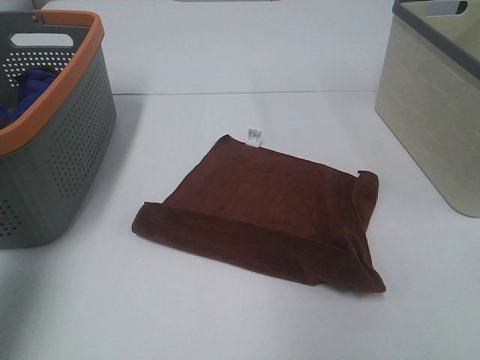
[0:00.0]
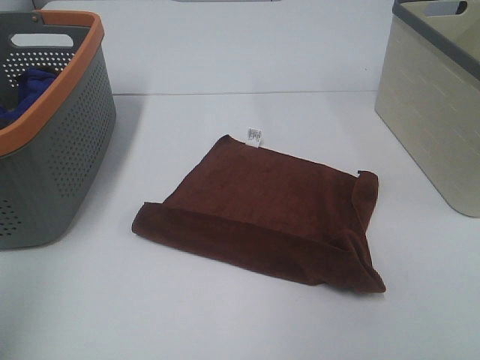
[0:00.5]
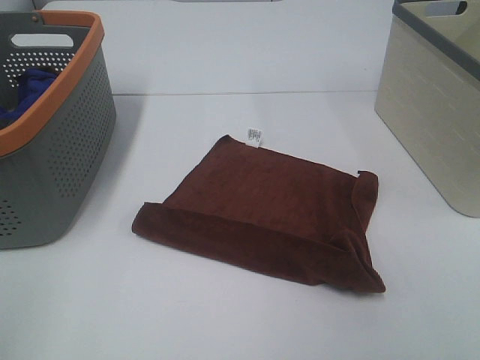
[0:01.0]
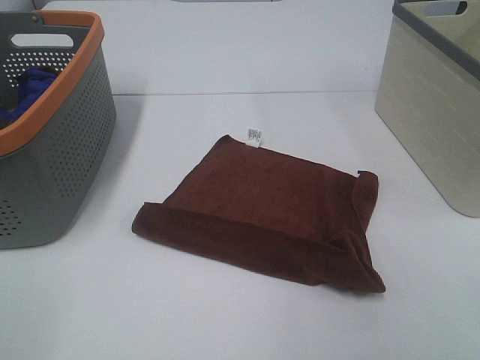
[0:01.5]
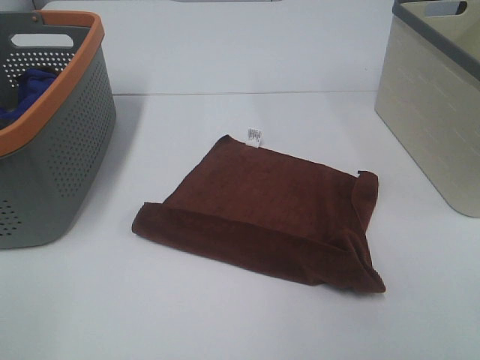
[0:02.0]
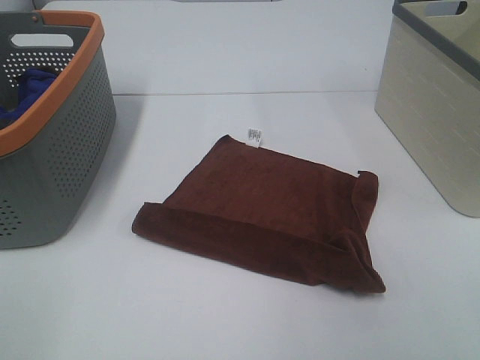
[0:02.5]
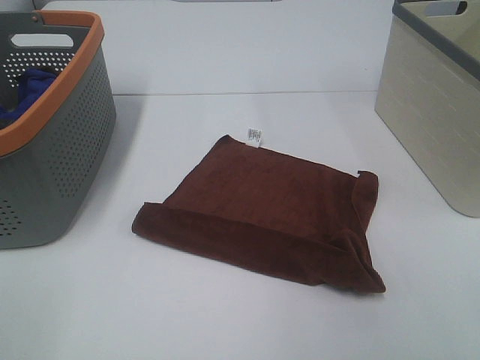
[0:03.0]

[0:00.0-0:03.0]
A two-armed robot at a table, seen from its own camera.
Task of the whole recording: Remove the towel and place it.
0:00.0 to 0:01.5: The left gripper goes about 25 cm backward and downward.
0:01.5 to 0:03.0: Both grippers stay put.

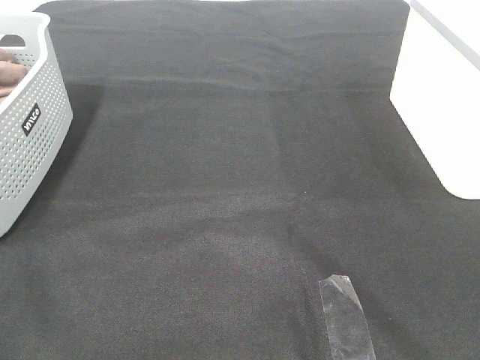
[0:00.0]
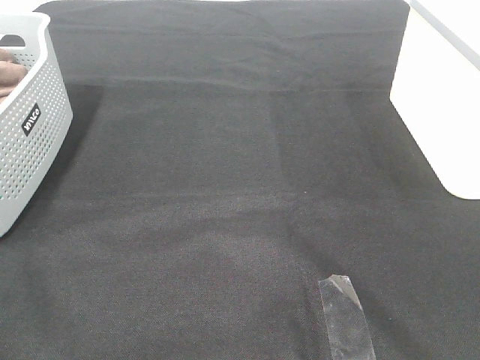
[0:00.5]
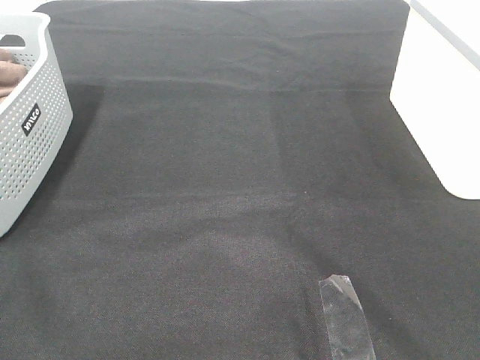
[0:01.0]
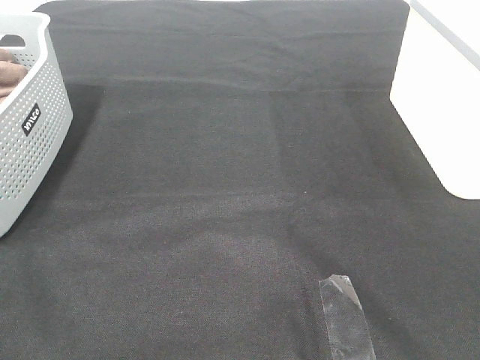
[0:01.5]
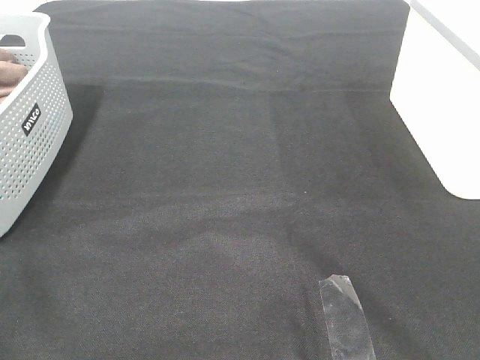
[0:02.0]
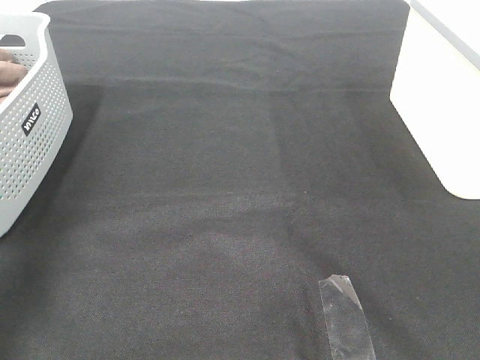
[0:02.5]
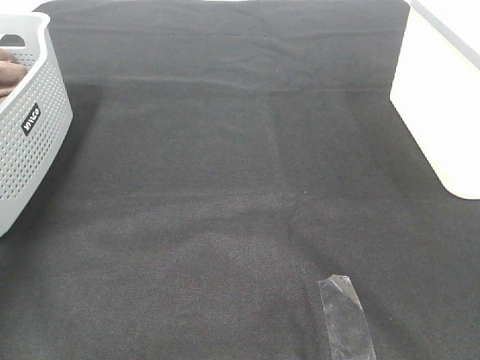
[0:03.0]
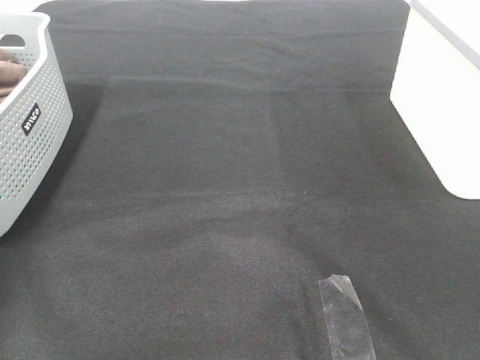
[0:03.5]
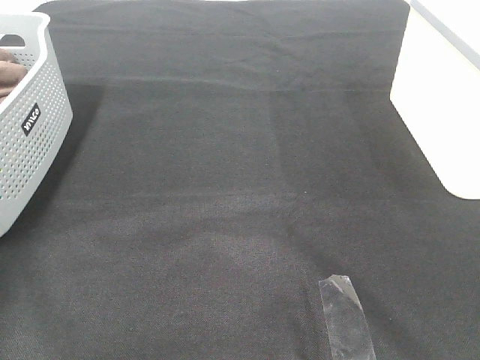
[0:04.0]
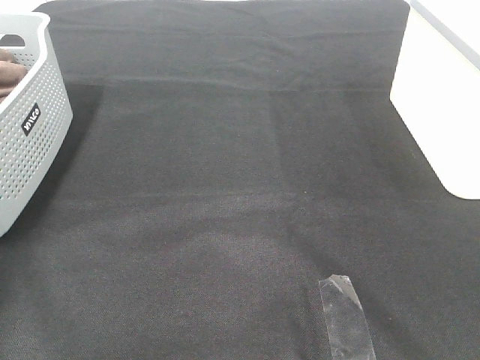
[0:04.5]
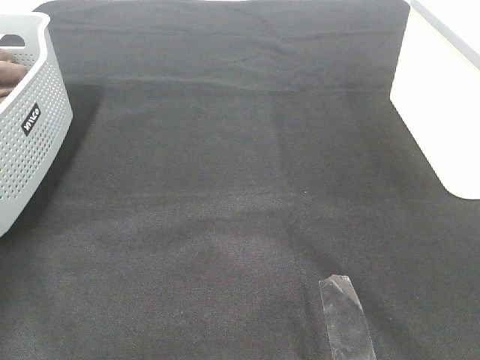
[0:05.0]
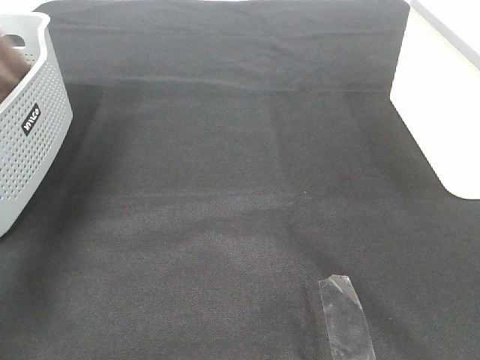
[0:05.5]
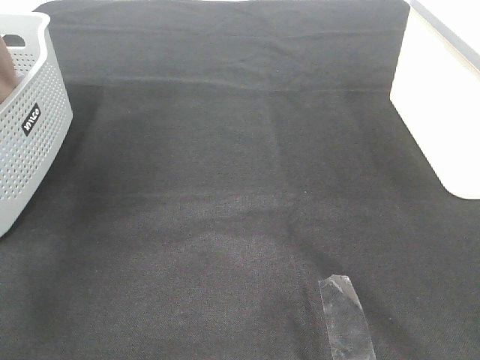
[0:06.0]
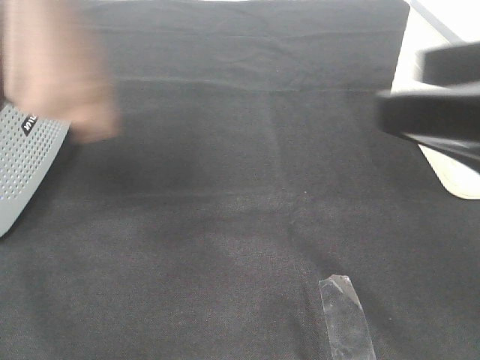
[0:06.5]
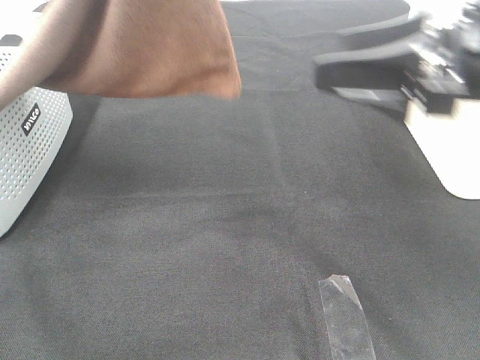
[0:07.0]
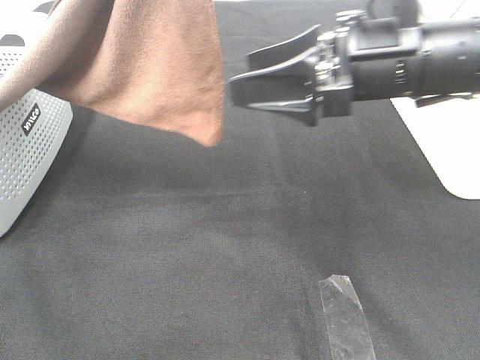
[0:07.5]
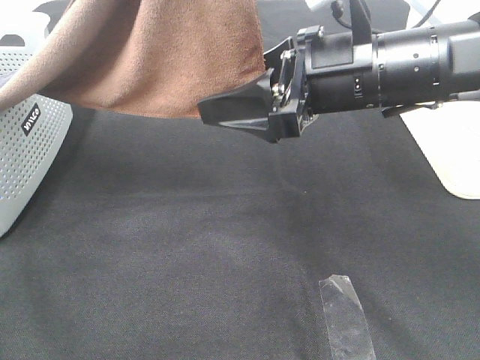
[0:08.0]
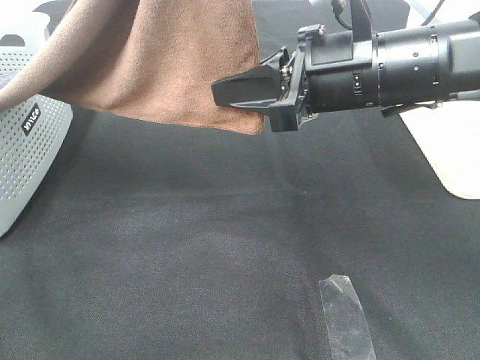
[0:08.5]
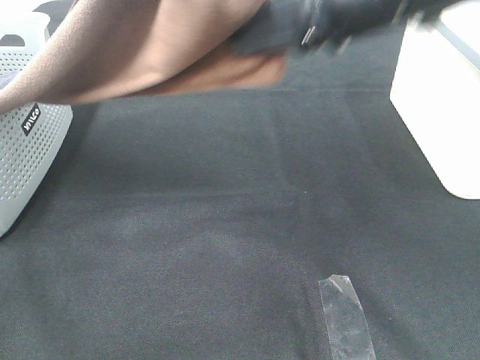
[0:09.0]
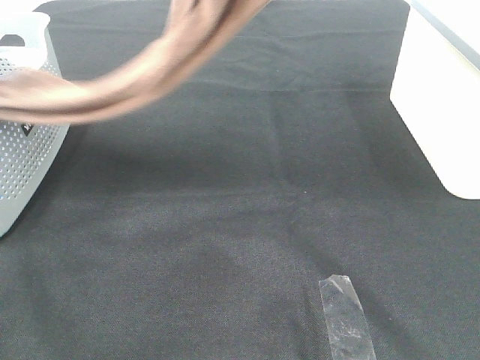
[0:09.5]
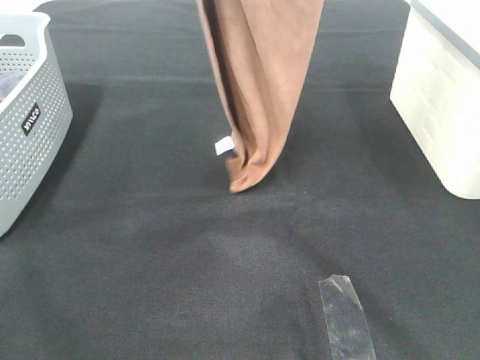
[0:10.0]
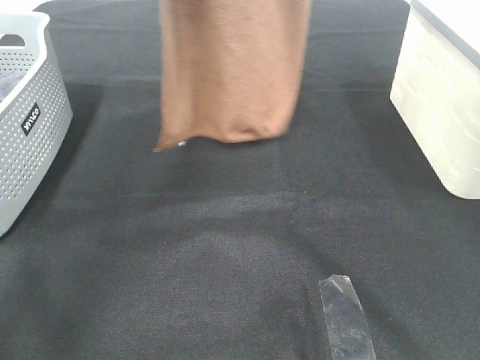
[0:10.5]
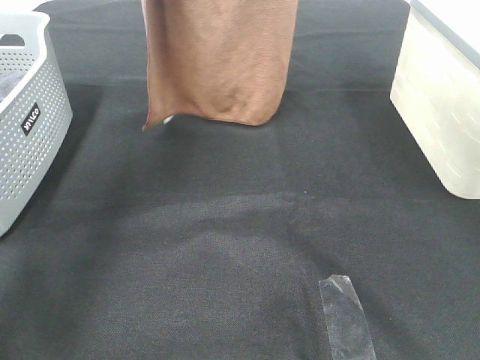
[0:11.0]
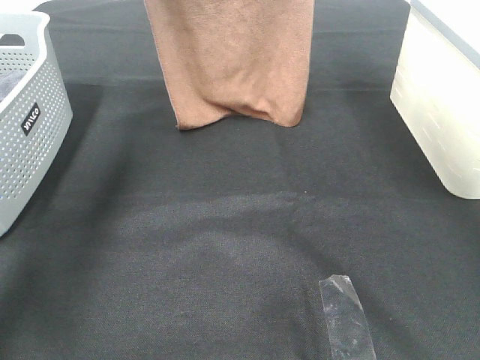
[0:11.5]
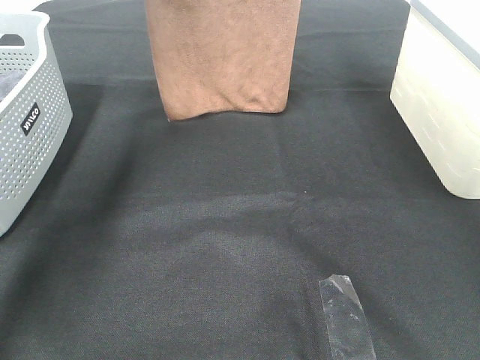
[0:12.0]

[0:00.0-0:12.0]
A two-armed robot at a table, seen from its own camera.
Task of the whole recording: Remove the towel and place it.
Step, 0:06.5 to 0:08.5: Right hand: grab a corner of the brown towel and straighten it.
0:04.0 to 0:06.0: The left gripper travels upward, to the right and backward by some 35 cm, and closes.
0:06.0 to 0:08.0: The right gripper goes approximately 30 cm forward and to the left. The left gripper is displaced to the right by about 20 cm.
0:08.0 to 0:10.0: The right gripper travels upward by some 25 cm, and closes. The left gripper goes roughly 10 cm forward and to the left.
0:10.0 to 0:12.0: The two grippers go some 15 cm forward and downward.

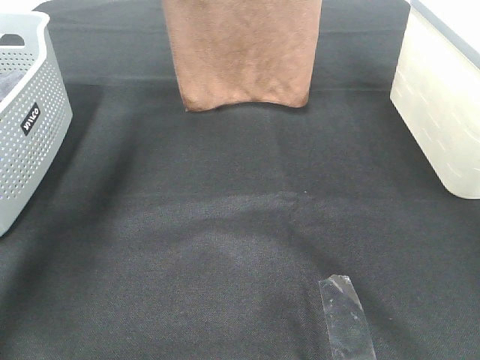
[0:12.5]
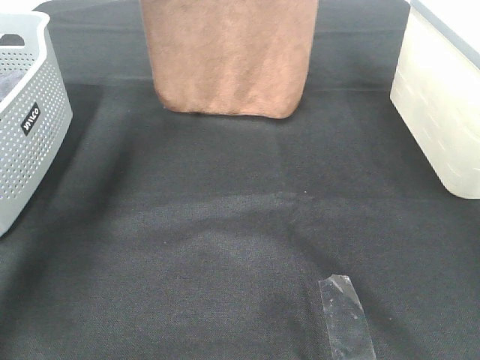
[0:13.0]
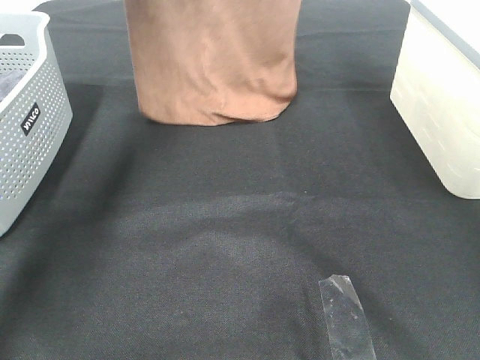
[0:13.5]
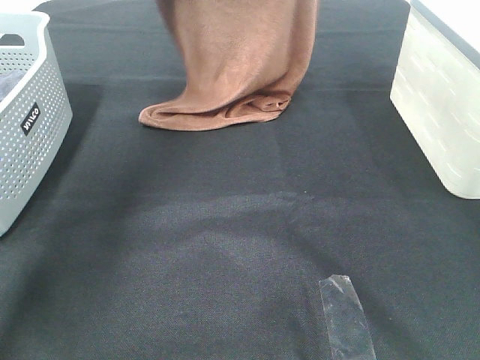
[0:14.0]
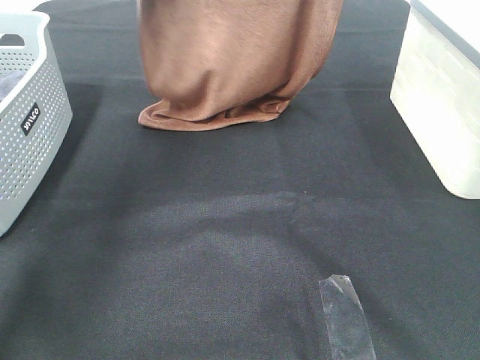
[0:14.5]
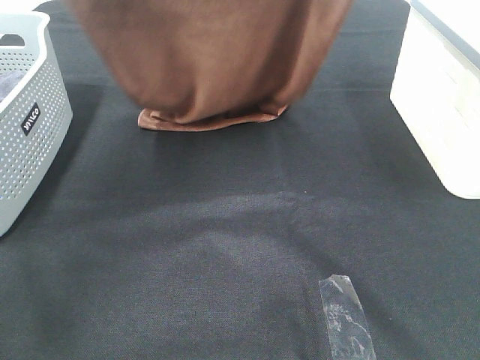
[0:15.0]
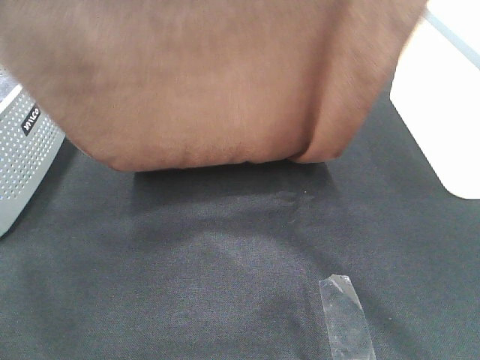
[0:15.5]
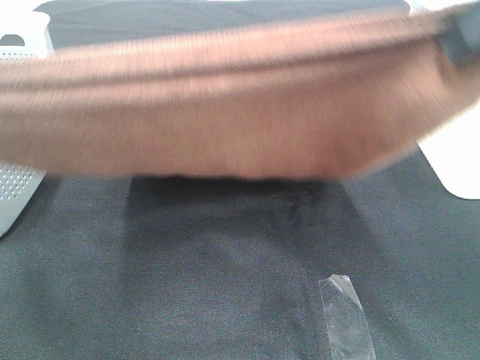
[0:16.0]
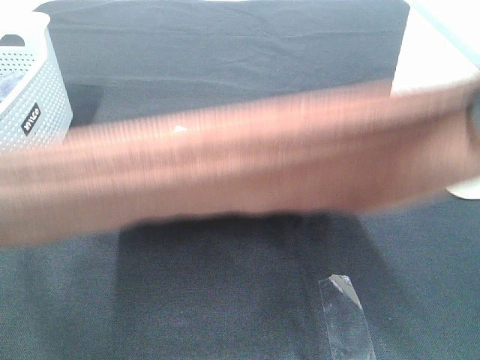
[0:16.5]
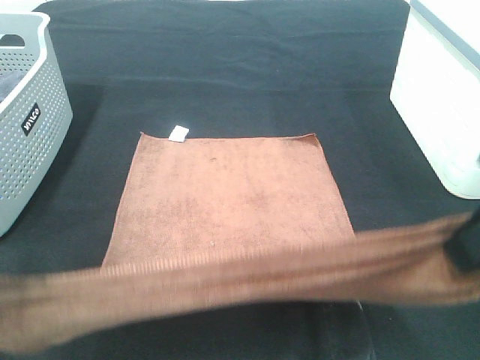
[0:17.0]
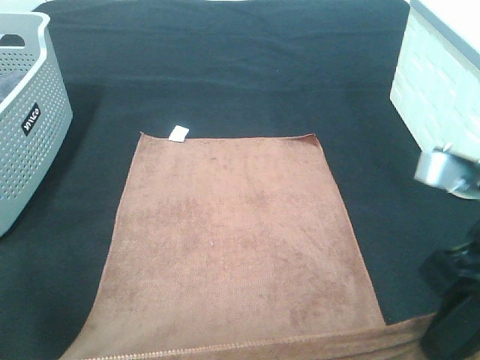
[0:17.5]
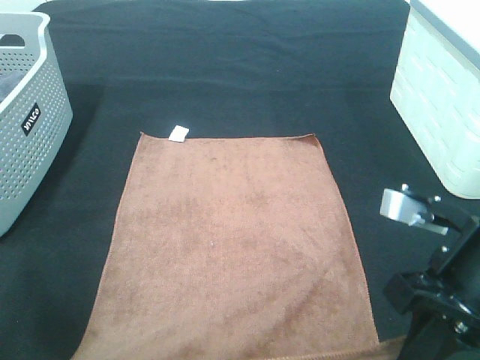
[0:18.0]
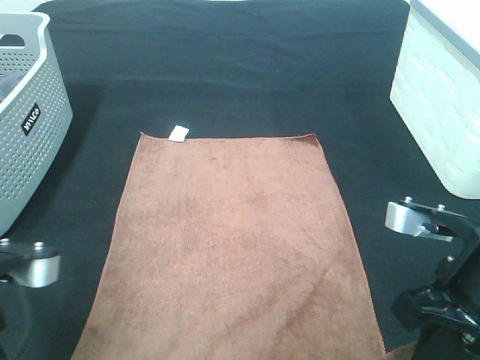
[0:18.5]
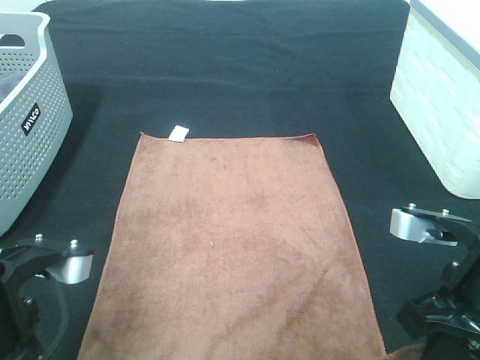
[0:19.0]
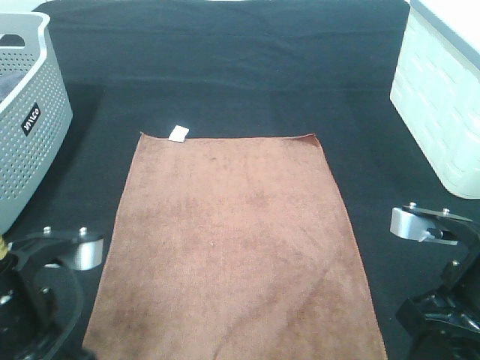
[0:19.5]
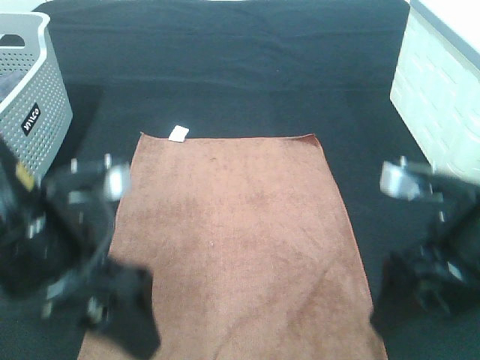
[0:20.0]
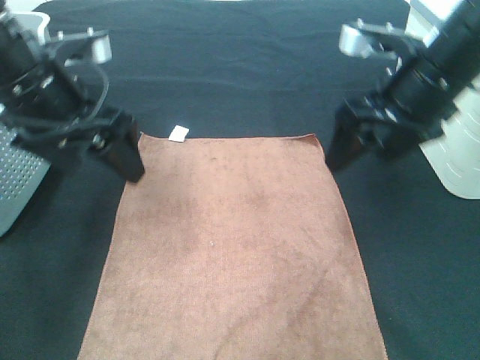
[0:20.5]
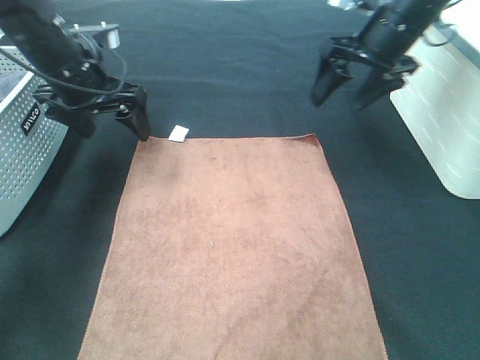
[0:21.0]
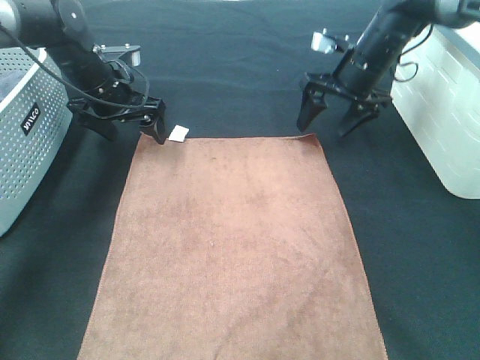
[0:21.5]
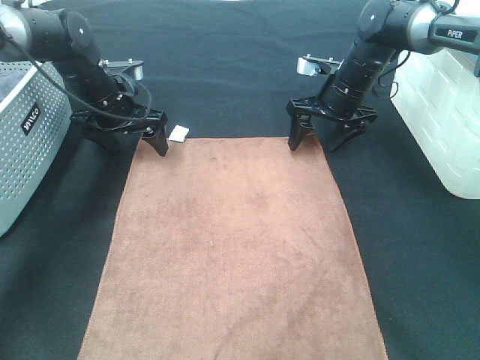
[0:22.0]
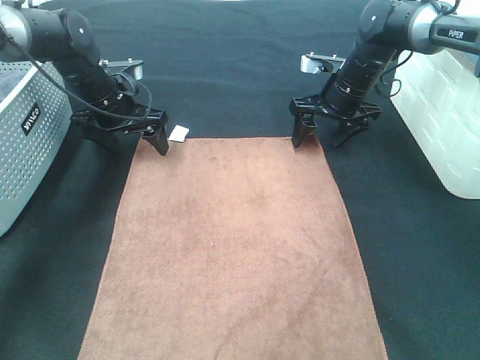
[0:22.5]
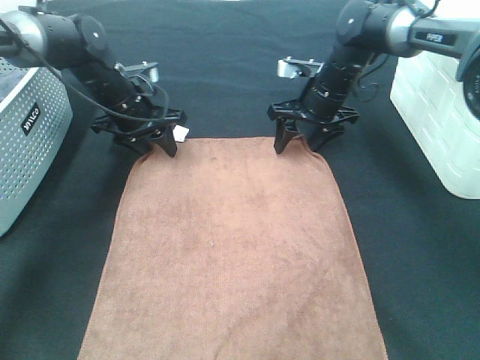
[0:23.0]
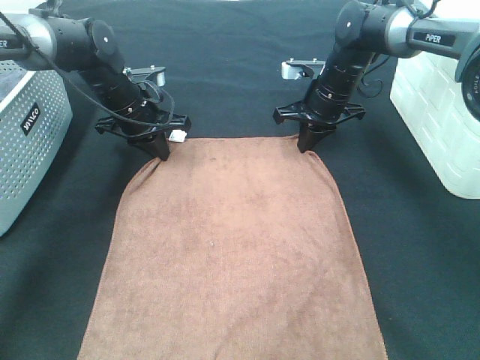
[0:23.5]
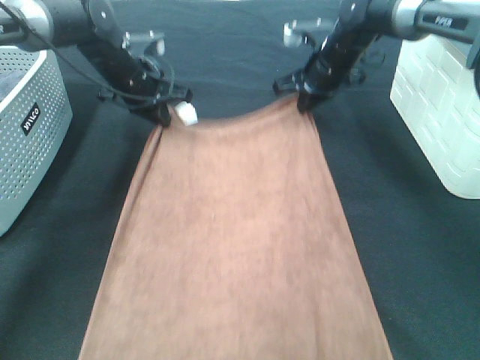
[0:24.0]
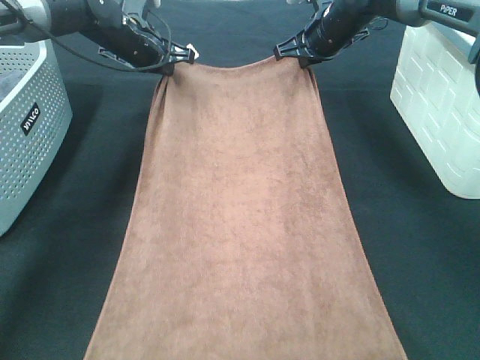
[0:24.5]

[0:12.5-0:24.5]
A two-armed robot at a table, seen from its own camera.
Task of the whole recording: Remove the towel and place it.
Step, 0:12.5 to 0:15.5: Left hand: spread the brown towel flat on the table.
Step, 0:12.5 to 0:15.5: Right hand: spread the brown towel flat on the table.
Step, 0:16.0 to 0:22.0: Left hand:adjust the brown towel.
Step, 0:16.0 to 0:22.0: Right hand:adjust the brown towel.
0:12.5 to 0:14.5: Both grippers travel together backward, some 10 cm.
0:14.5 to 0:16.5: The grippers both shift backward by about 30 cm.
0:16.5 to 0:18.5: Both grippers travel together downward, roughly 20 cm.
0:18.5 to 0:20.5: The right gripper goes some 20 cm forward and upward, and opens up, while the left gripper shifts about 20 cm forward, and opens up.
0:20.5 to 0:22.5: Both grippers move forward and downward, some 20 cm.
0:22.5 to 0:24.5: The left gripper travels upward and forward by approximately 10 cm, and closes; the right gripper moves upward, some 5 cm, and closes its fingers.
